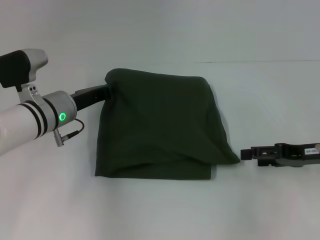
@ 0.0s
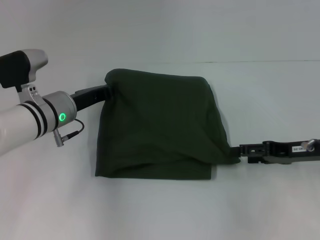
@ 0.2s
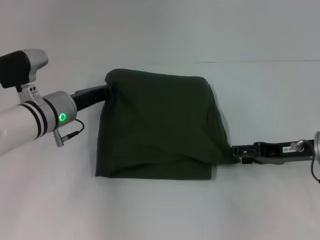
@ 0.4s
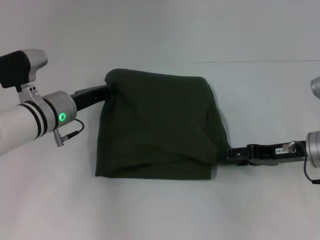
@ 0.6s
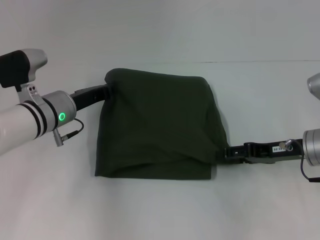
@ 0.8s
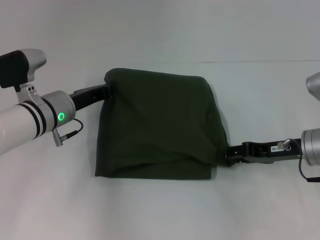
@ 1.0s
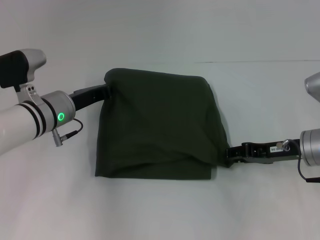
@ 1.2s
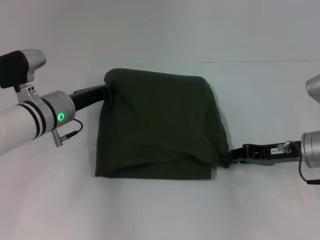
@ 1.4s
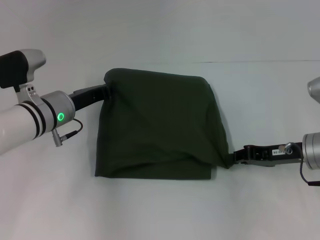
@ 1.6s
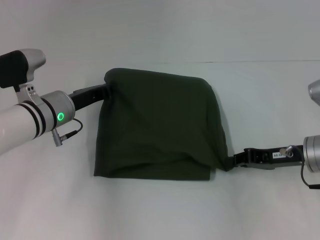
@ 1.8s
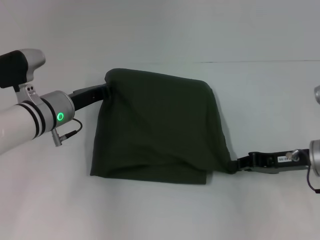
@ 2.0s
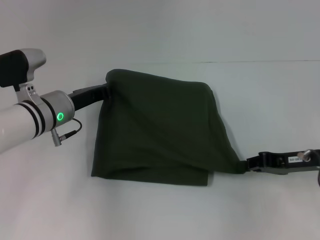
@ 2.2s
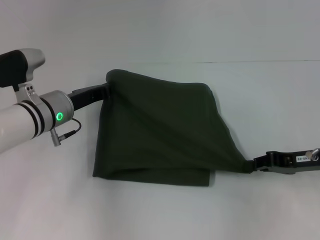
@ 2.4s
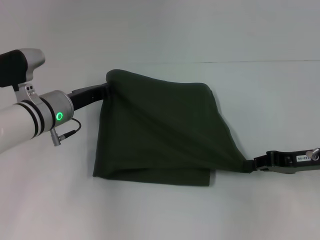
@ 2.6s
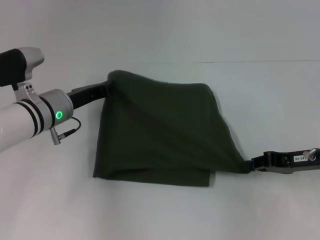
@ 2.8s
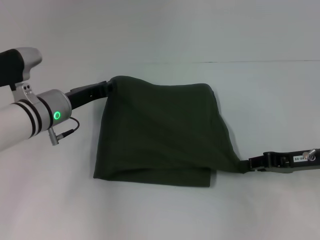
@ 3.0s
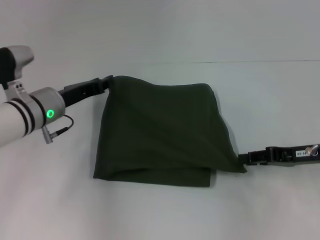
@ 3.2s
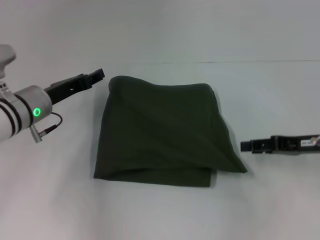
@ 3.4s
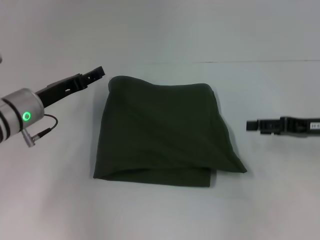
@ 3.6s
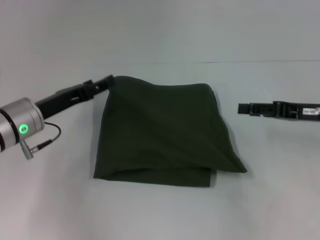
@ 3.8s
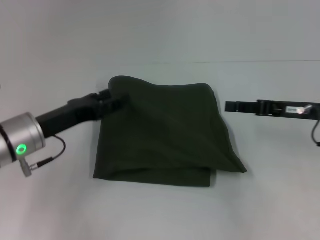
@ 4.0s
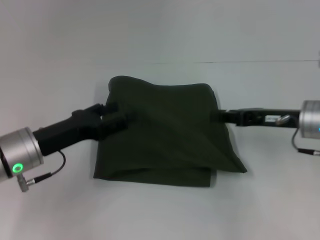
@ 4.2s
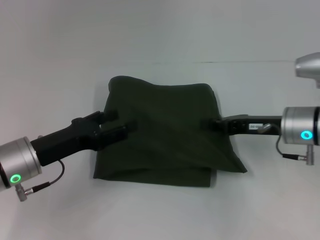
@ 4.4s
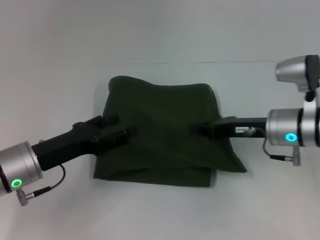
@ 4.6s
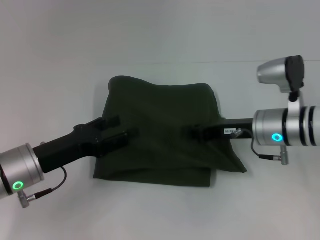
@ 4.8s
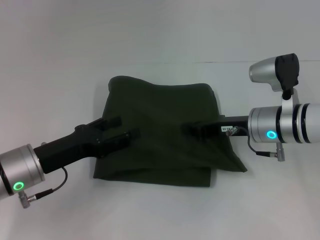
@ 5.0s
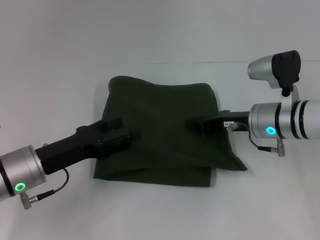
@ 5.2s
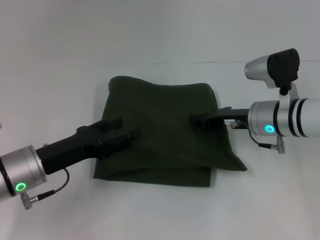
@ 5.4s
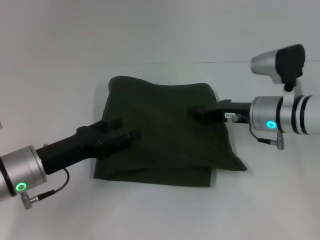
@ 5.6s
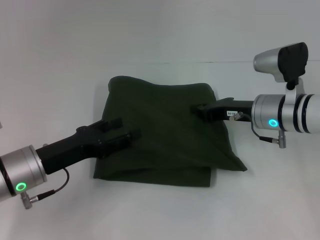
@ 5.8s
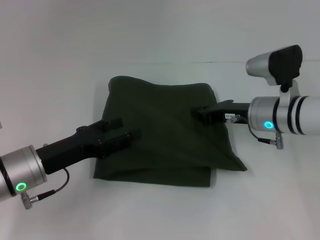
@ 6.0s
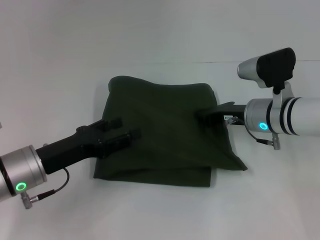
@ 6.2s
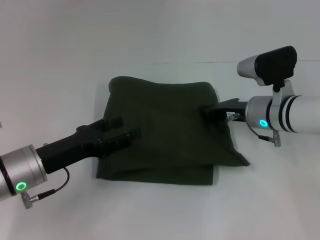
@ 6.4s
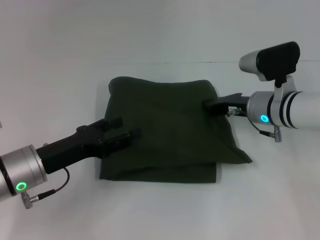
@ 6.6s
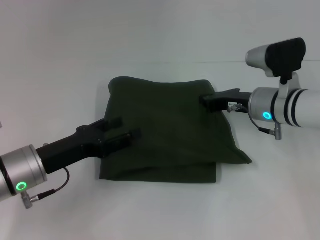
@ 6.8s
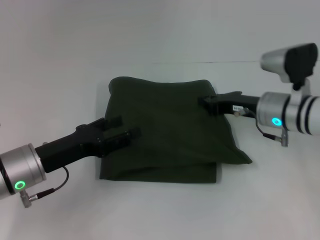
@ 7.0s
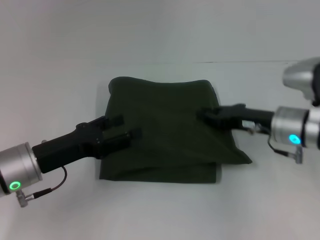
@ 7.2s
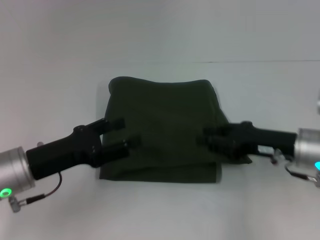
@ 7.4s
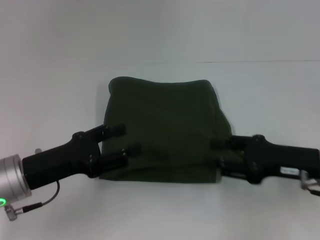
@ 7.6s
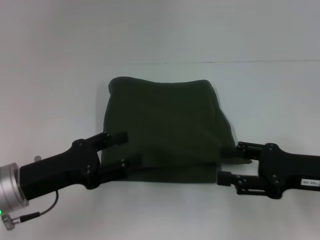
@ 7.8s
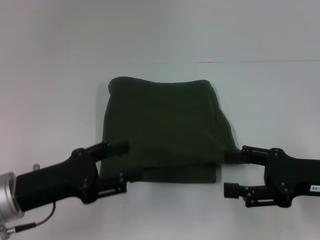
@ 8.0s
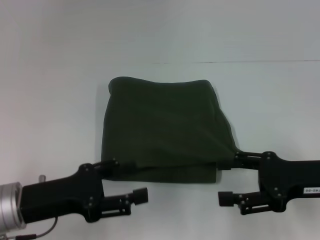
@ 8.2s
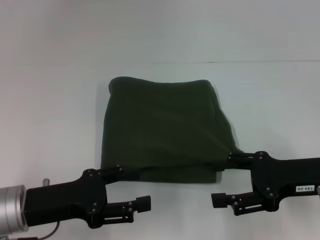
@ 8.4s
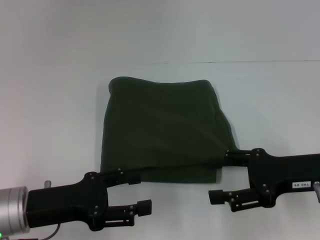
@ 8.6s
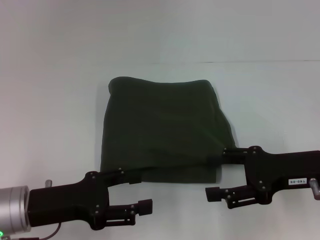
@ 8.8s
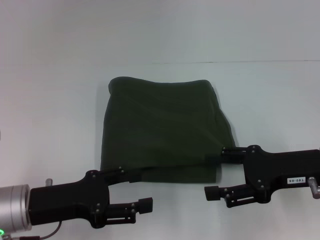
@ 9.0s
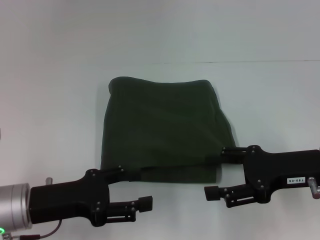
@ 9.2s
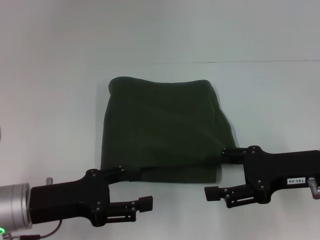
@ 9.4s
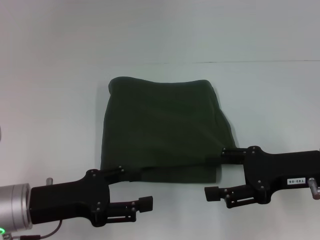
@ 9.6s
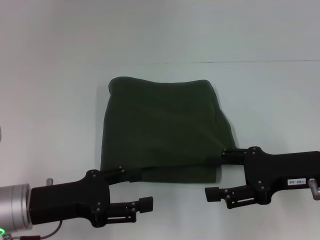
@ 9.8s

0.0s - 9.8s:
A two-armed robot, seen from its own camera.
0.0s - 1.4s: The right gripper shifts by roughly 5 cm, and closes.
1.4s - 2.8s: The grippers make only small movements.
2.8s - 4.2s: The left gripper goes approximately 10 cm backward, and opens up, while the right gripper moves roughly 5 cm, and opens.
4.2s - 5.6s: The right gripper is displaced to the left by approximately 5 cm, and closes up.
5.6s - 7.0s: The grippers move only a little.
7.0s - 8.4s: The left gripper is displaced backward by some 5 cm; the right gripper heads backward and to the right, covering approximately 15 cm, and opens its fingers.
8.4s - 9.8s: Neither gripper changes place.

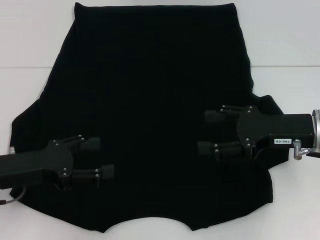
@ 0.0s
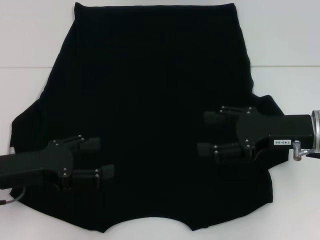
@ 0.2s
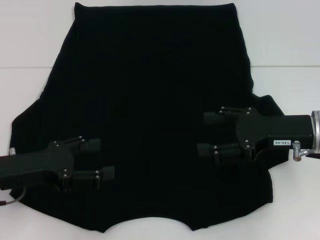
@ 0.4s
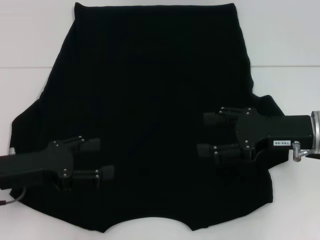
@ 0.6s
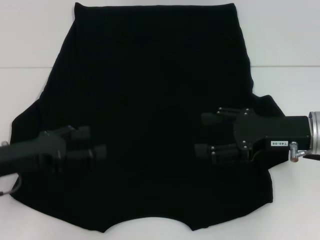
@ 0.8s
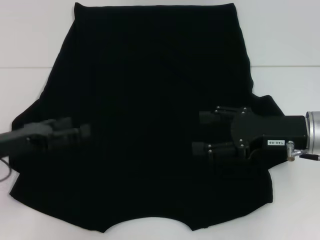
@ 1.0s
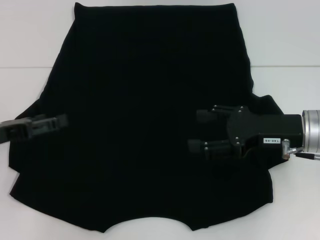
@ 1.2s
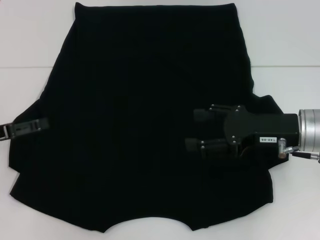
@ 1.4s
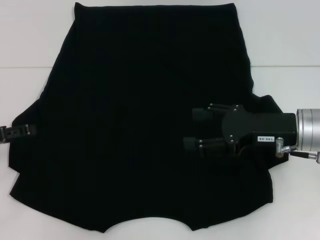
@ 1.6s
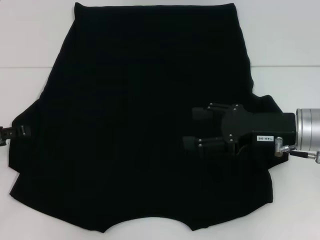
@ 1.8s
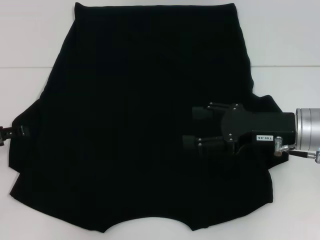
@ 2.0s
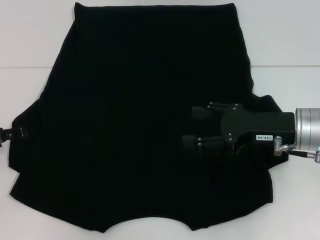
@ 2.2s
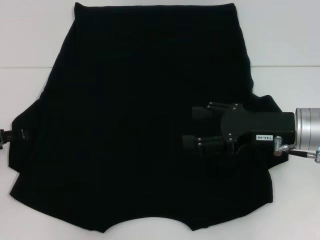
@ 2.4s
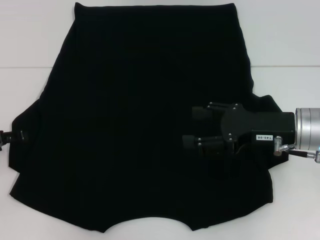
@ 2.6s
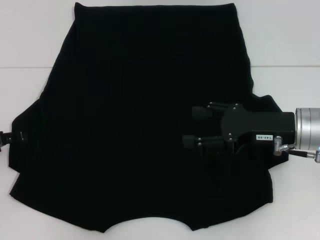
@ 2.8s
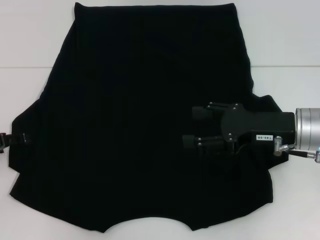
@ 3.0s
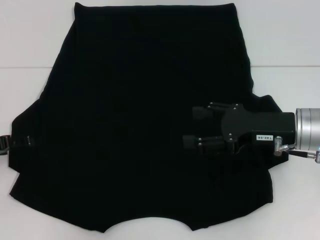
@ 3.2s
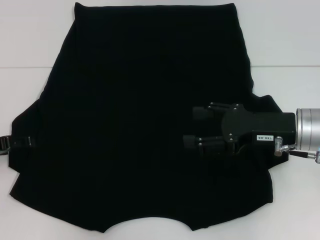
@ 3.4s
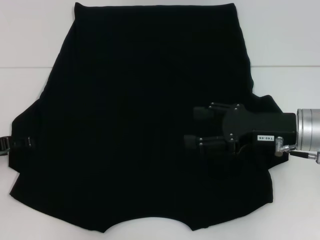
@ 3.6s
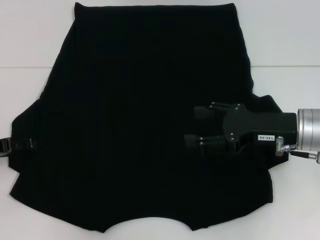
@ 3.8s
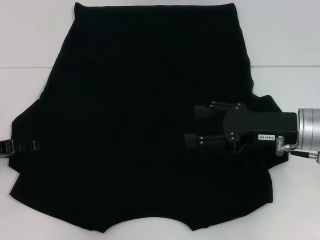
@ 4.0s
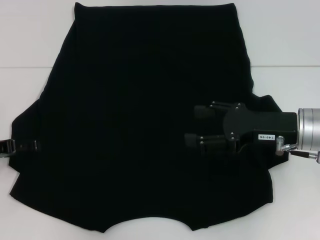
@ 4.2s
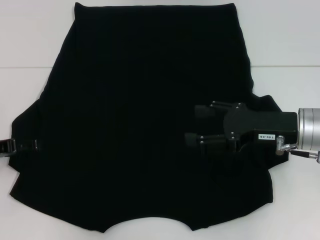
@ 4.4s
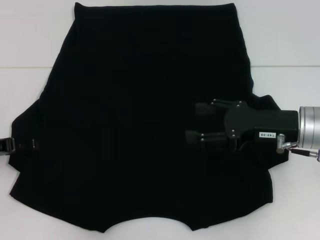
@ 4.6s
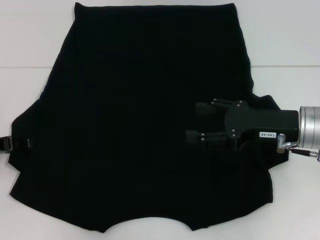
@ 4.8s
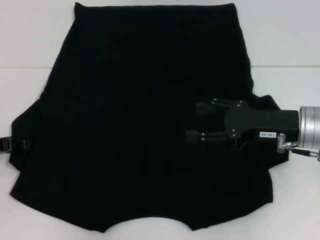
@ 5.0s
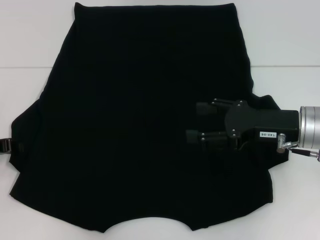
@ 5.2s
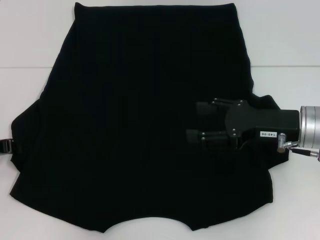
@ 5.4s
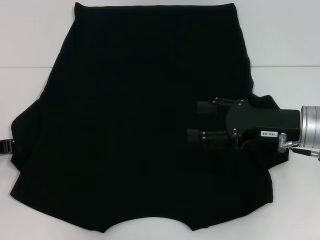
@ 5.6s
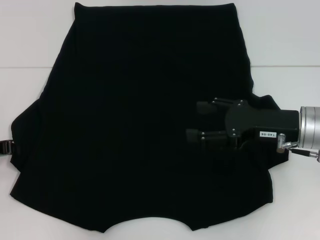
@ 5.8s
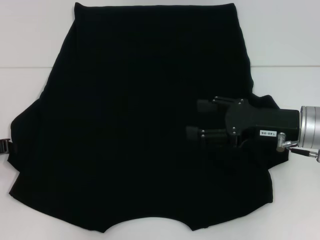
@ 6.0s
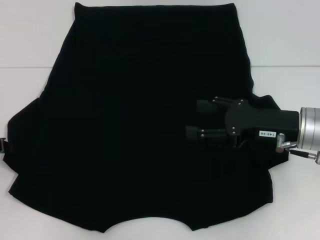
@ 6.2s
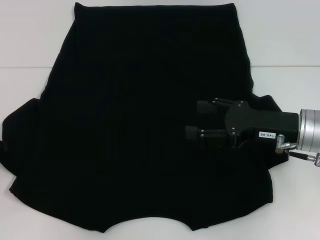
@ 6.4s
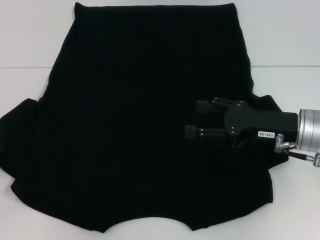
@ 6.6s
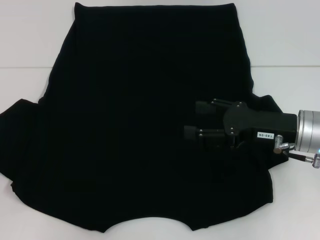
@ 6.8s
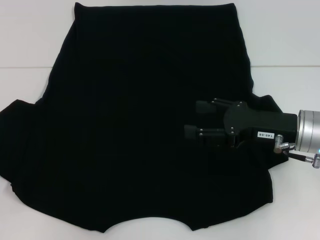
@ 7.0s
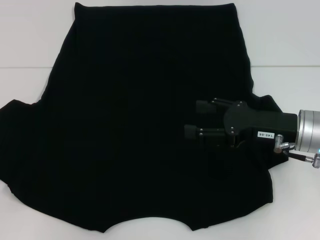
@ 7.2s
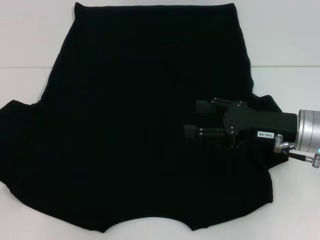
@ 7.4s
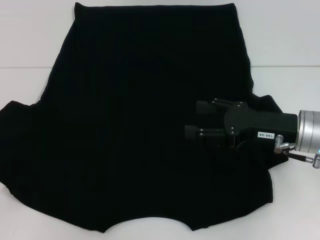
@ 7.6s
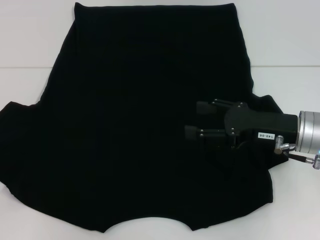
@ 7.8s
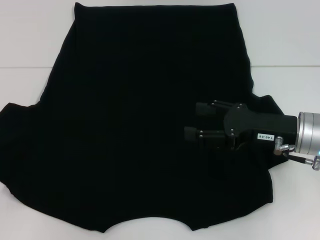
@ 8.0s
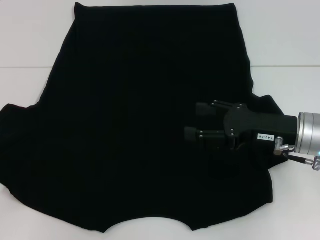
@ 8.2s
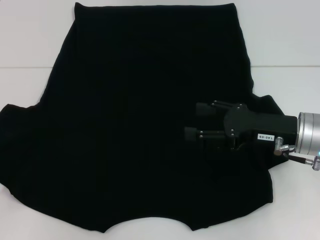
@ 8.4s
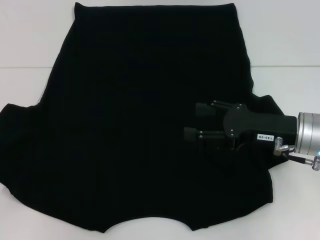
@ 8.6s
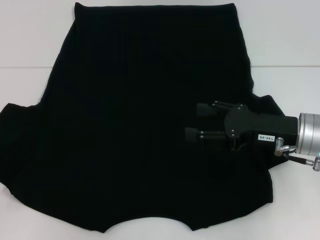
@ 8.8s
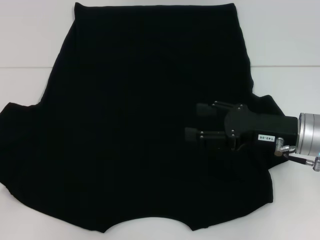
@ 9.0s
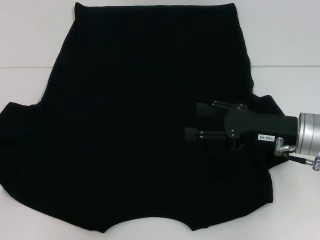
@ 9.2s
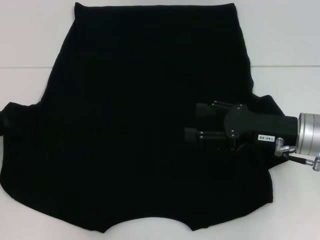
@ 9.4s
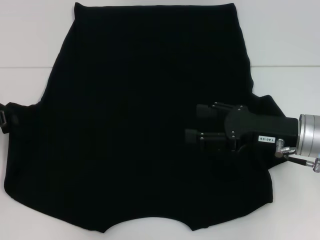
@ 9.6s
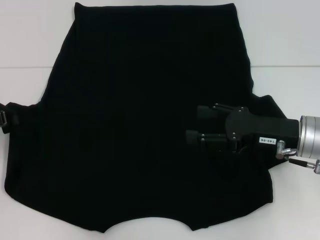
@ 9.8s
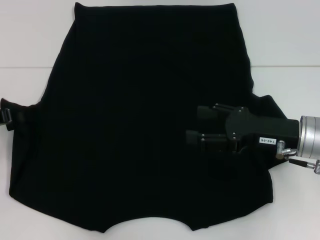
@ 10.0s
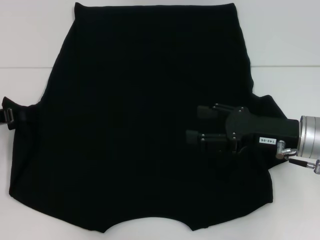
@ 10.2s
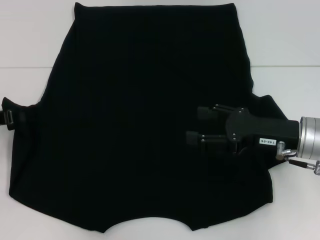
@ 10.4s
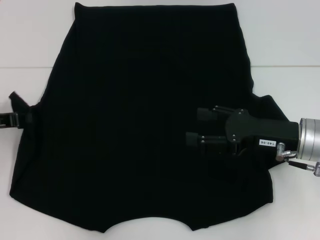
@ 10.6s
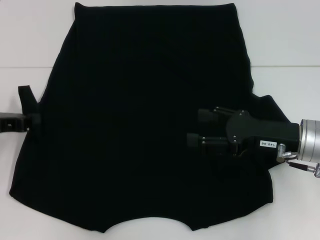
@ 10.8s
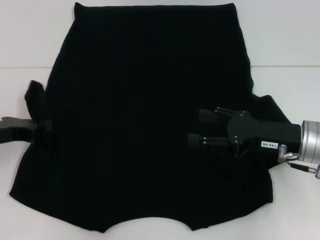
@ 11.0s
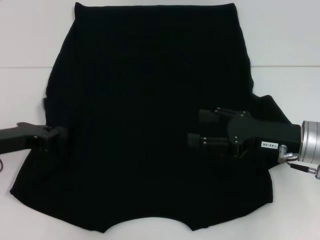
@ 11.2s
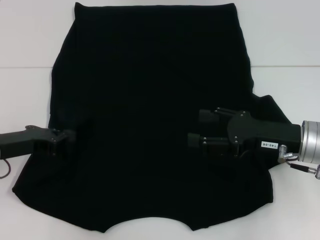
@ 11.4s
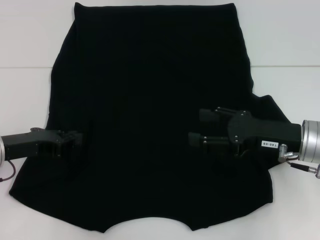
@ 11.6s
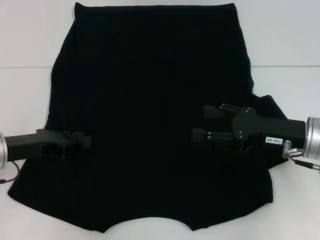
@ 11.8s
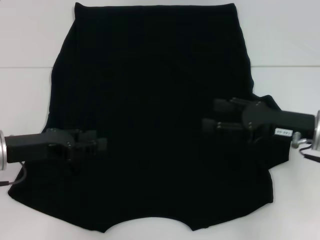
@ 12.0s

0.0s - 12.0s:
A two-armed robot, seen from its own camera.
0.0s - 1.6s: The left gripper shifts approximately 10 cm to the left.
1.6s - 4.4s: There are only small adjustments of the grippers.
6.0s - 7.6s: There are only small adjustments of the grippers.
7.6s - 9.0s: The two grippers keep their place.
9.0s - 10.4s: The left gripper changes place by roughly 5 cm.
10.4s - 12.0s: The left gripper moves to the right, approximately 5 cm.

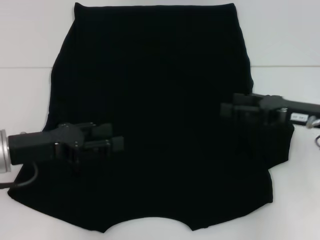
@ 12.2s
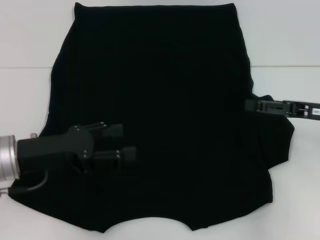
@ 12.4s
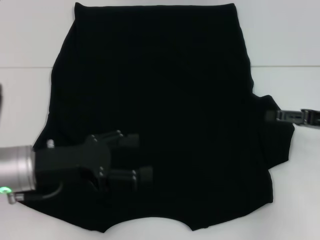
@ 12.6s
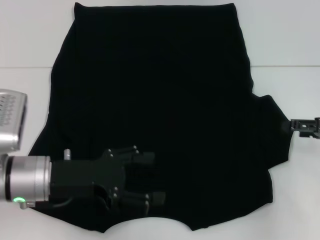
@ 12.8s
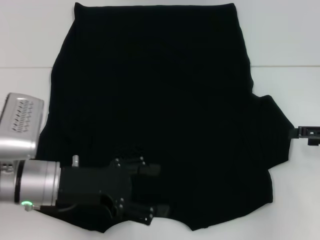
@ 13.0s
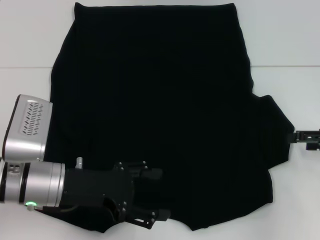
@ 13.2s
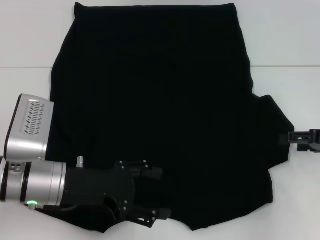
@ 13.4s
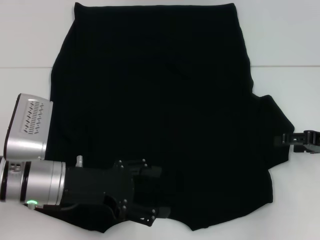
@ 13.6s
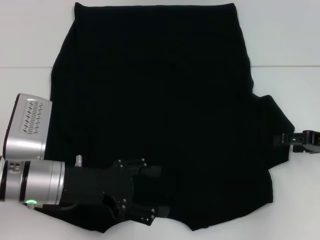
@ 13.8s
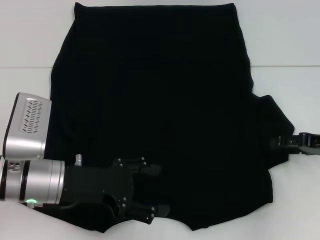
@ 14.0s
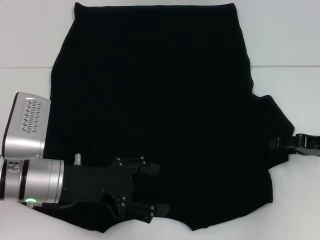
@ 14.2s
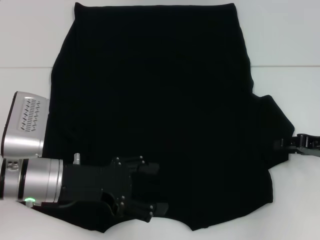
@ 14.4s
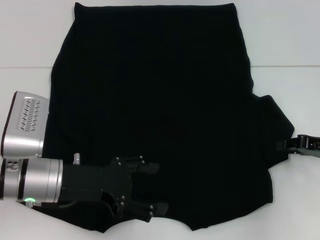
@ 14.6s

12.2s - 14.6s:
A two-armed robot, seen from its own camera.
12.2s - 13.4s: The two grippers go about 5 cm to the right. The left gripper opens.
13.4s - 14.6s: The right gripper closes its fingers.
